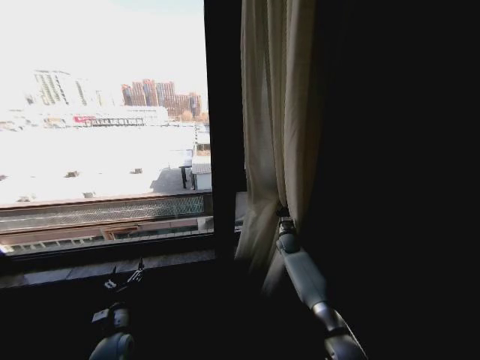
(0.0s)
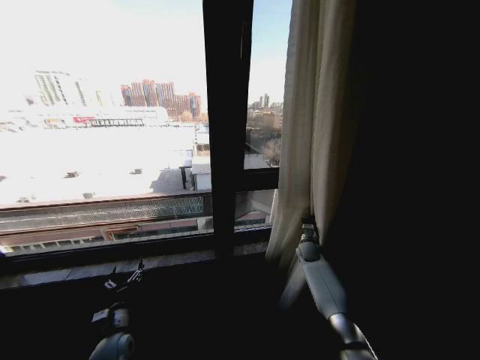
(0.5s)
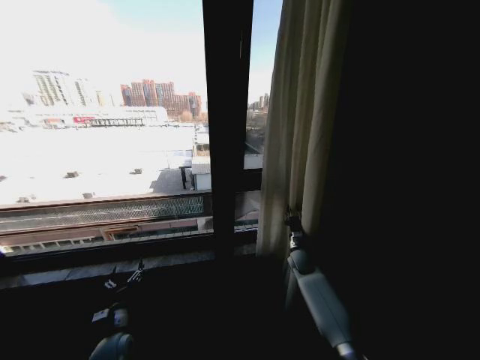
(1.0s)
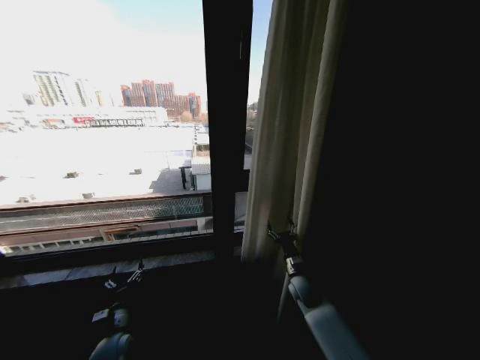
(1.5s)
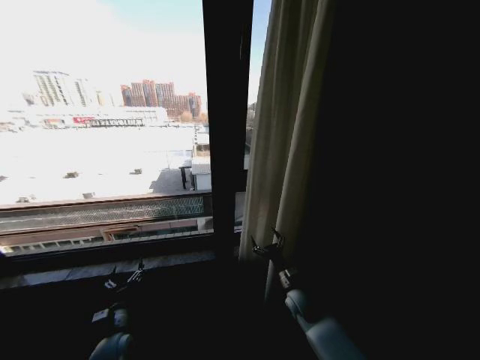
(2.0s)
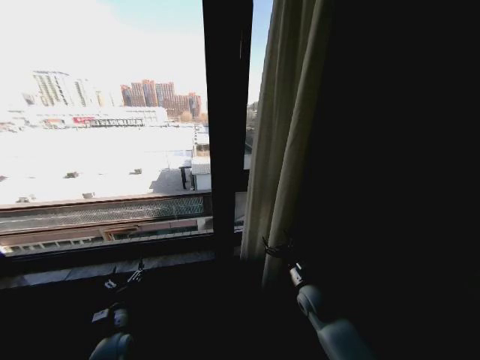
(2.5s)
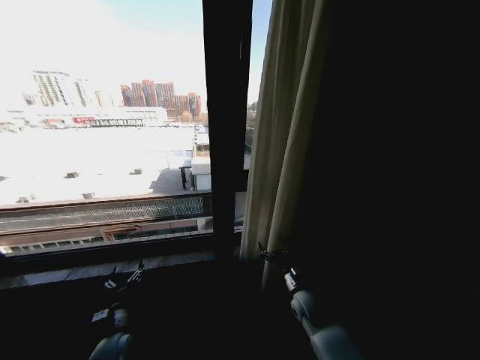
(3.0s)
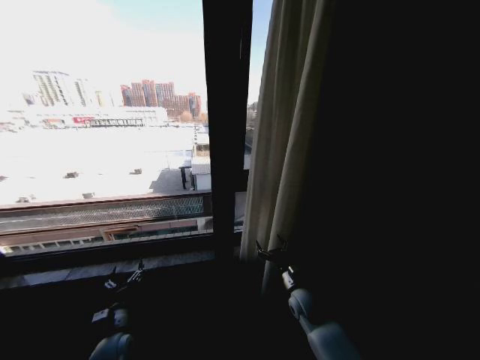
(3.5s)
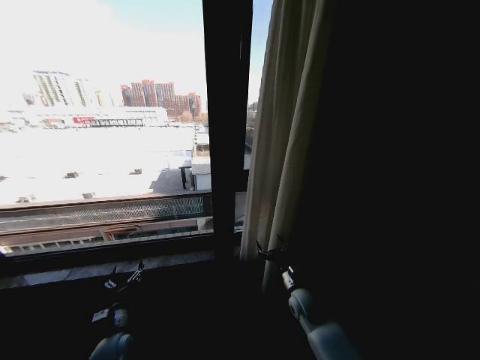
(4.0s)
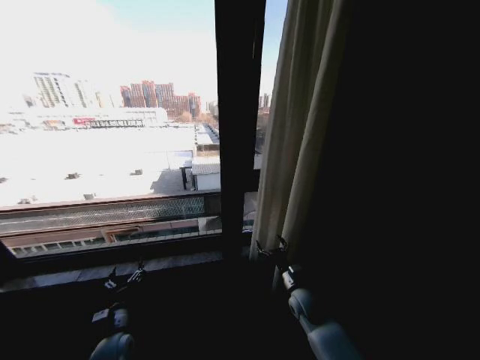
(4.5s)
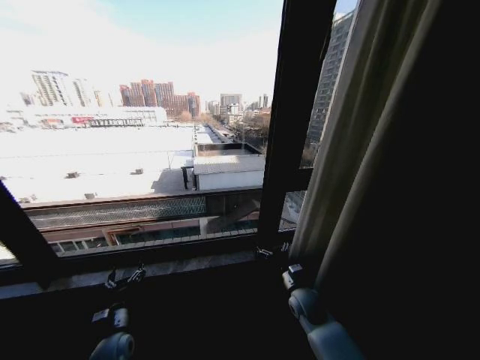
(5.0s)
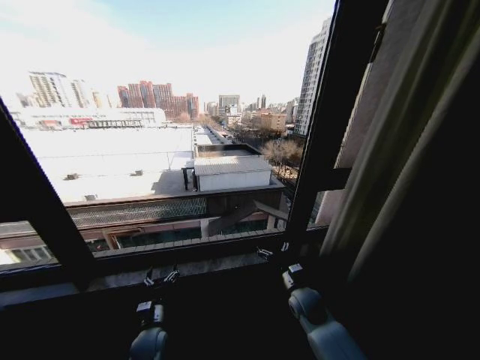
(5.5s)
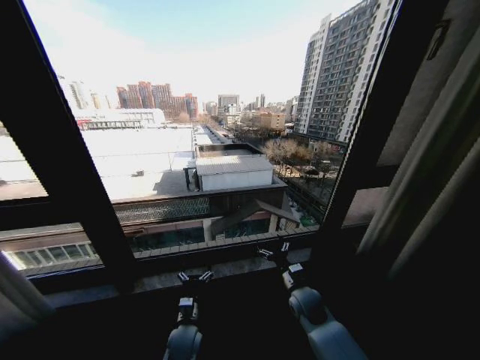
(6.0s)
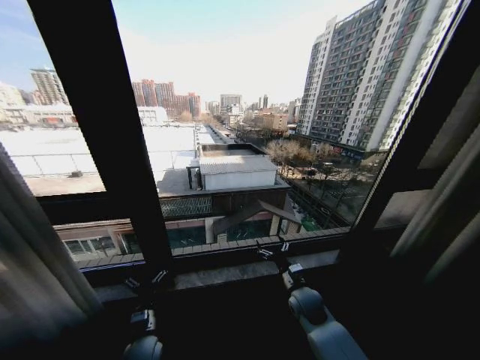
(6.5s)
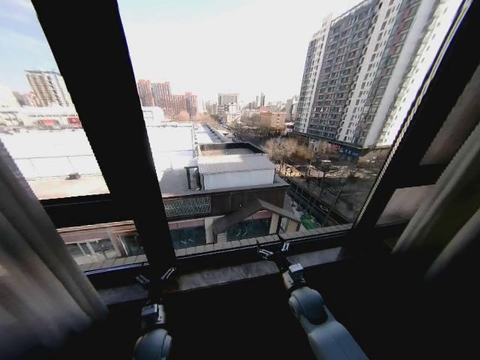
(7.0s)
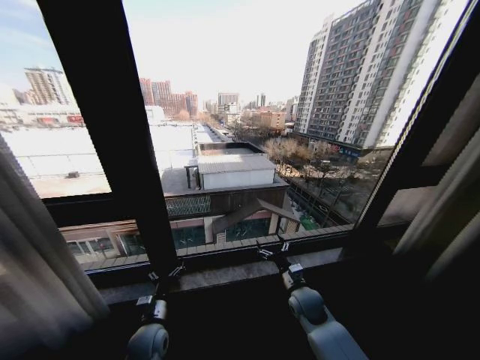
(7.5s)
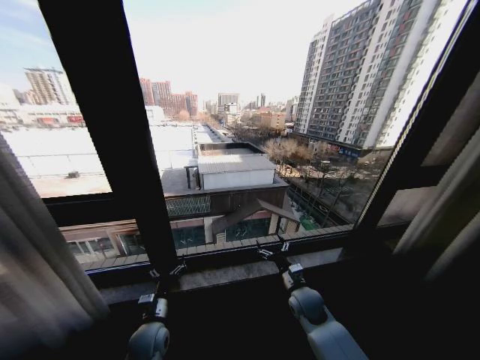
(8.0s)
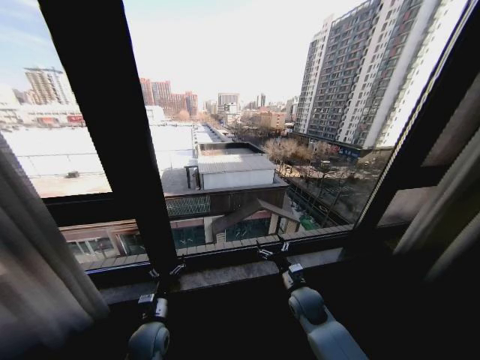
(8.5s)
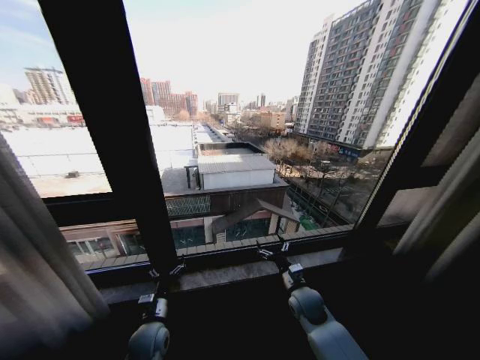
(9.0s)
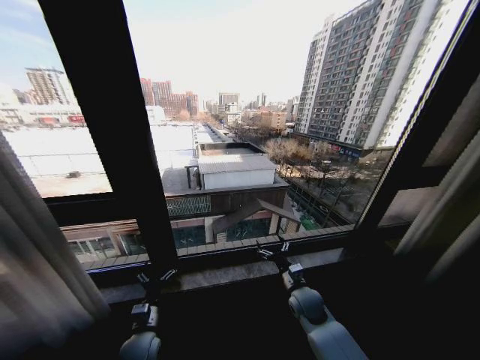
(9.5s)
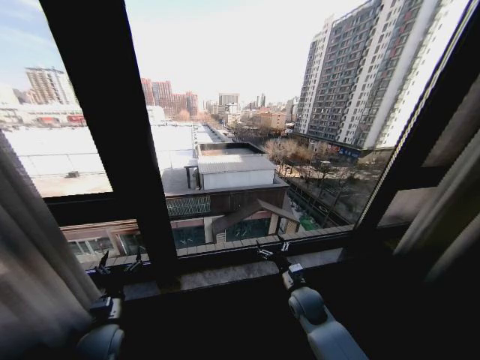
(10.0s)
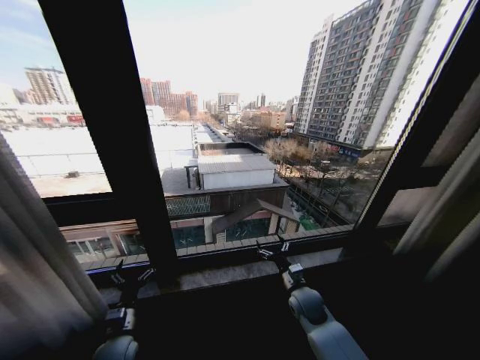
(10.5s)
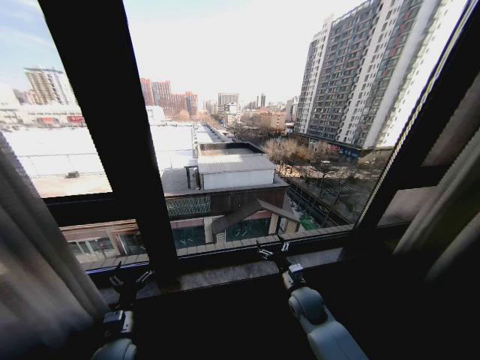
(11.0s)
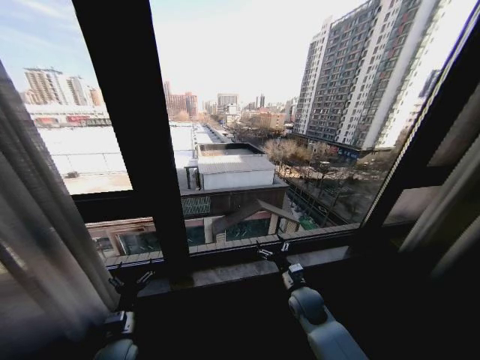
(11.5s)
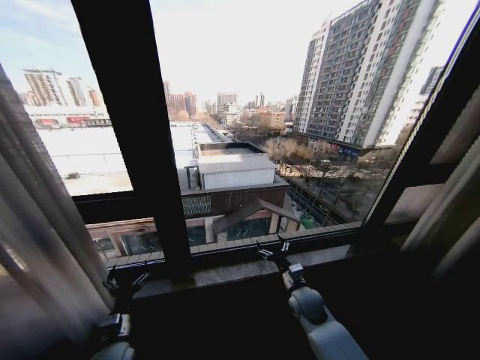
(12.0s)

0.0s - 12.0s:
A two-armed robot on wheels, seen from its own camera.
Task of the whole recording: Open the curtains by pulling them apart, changing their state from closed to fully open.
0.0s - 2.0s: The right gripper travels backward by roughly 20 cm, and opens up.
2.0s - 4.0s: There are only small adjustments of the grippers.
4.0s - 6.0s: The left gripper is displaced to the right by approximately 20 cm.
6.0s - 8.0s: The left gripper shifts roughly 10 cm to the left.
8.0s - 10.0s: The left gripper goes roughly 10 cm to the left.
10.0s - 12.0s: The left gripper changes place by roughly 5 cm.

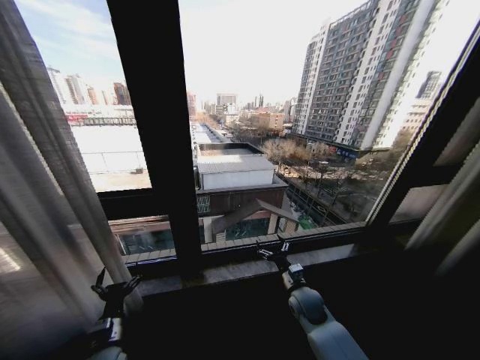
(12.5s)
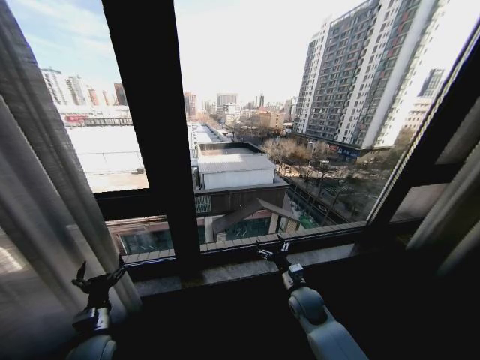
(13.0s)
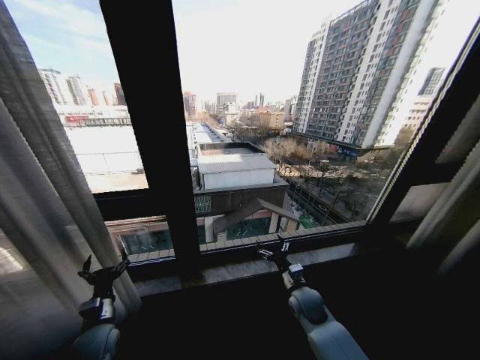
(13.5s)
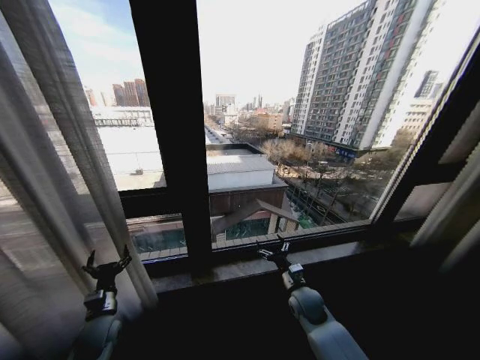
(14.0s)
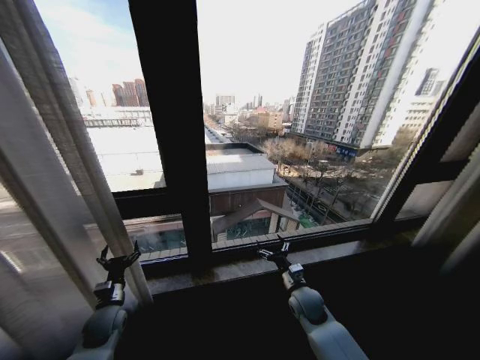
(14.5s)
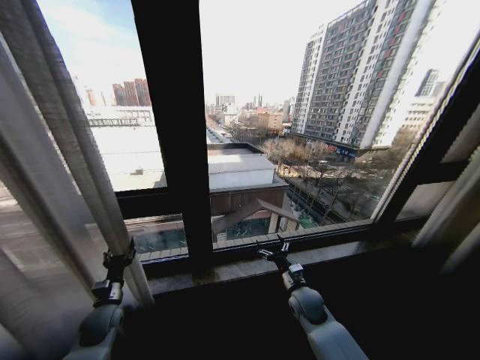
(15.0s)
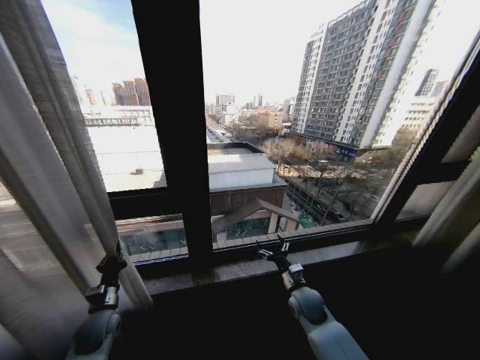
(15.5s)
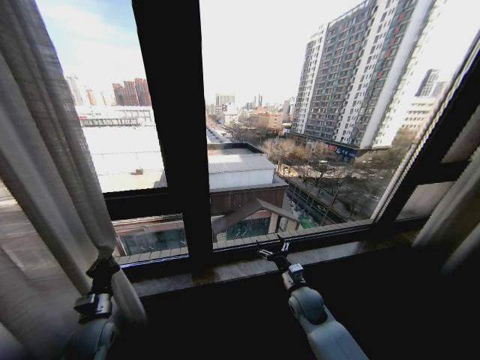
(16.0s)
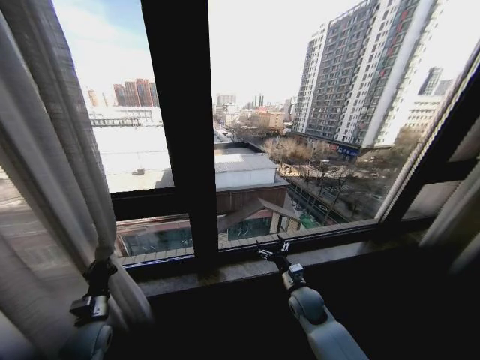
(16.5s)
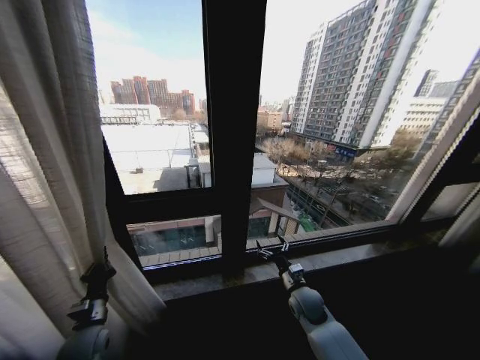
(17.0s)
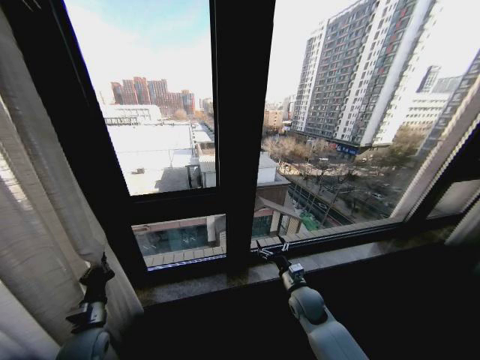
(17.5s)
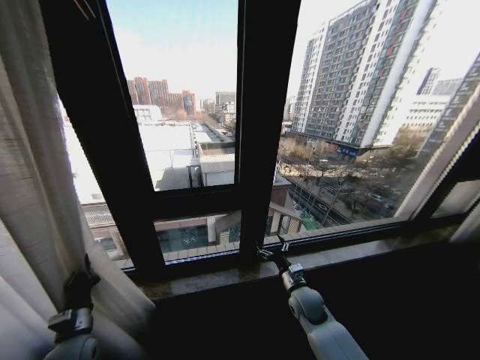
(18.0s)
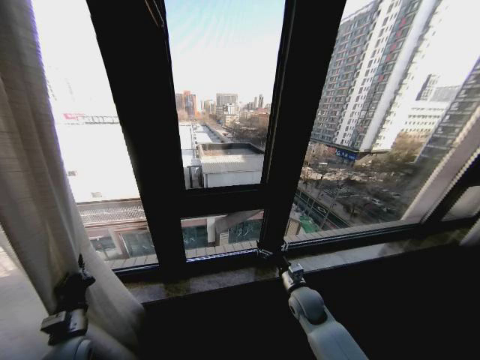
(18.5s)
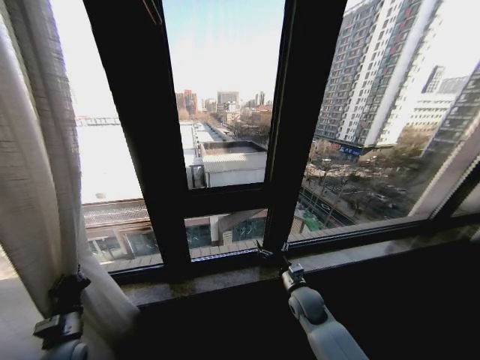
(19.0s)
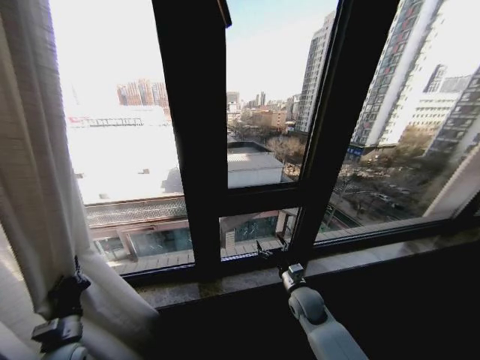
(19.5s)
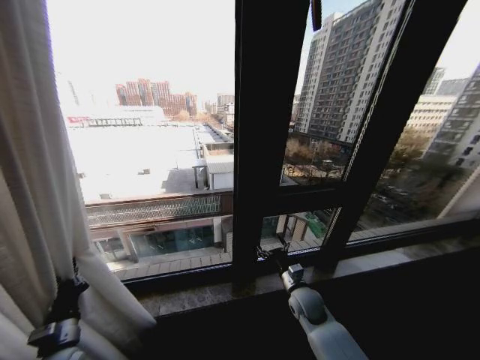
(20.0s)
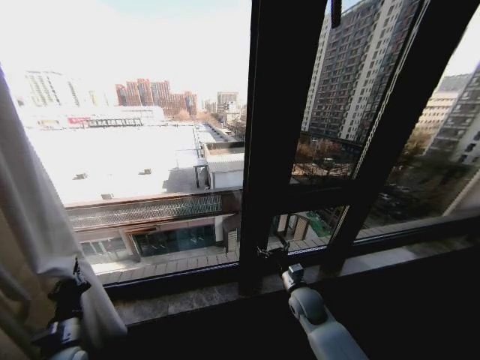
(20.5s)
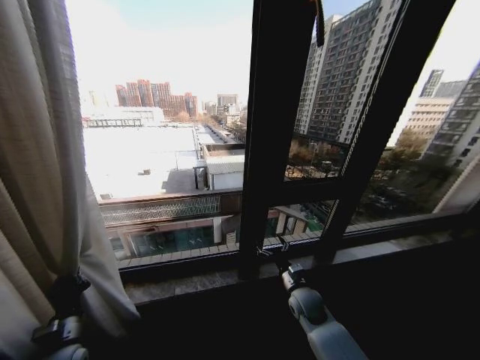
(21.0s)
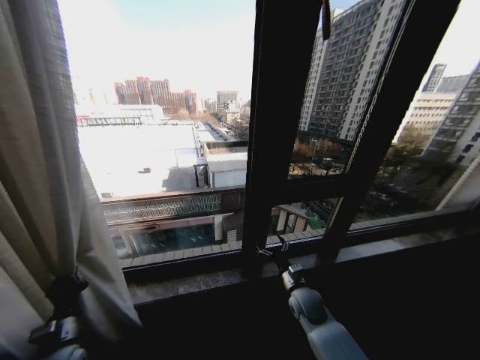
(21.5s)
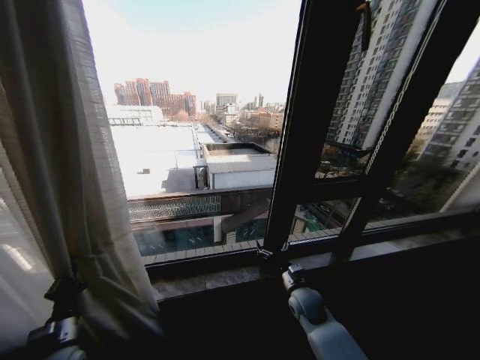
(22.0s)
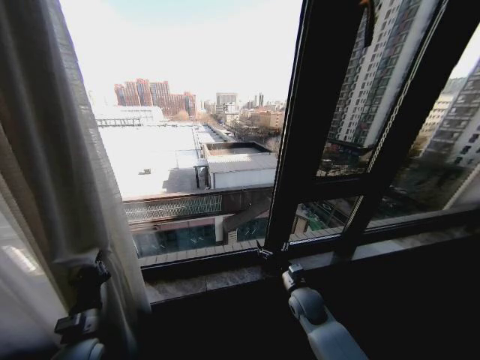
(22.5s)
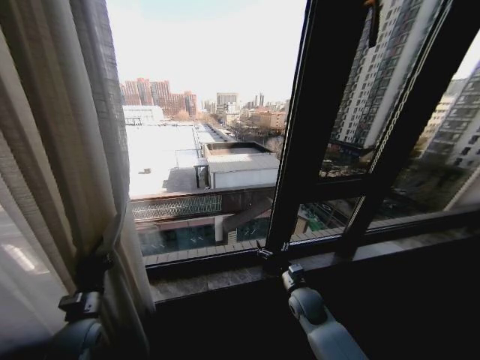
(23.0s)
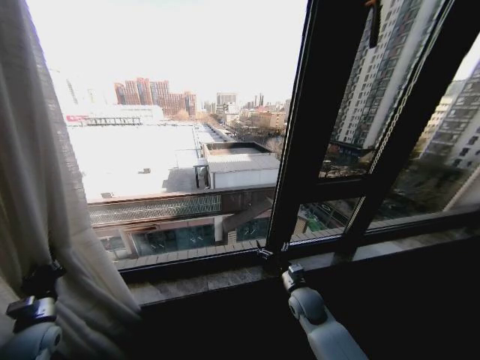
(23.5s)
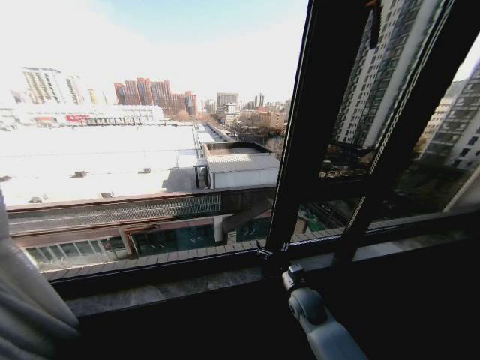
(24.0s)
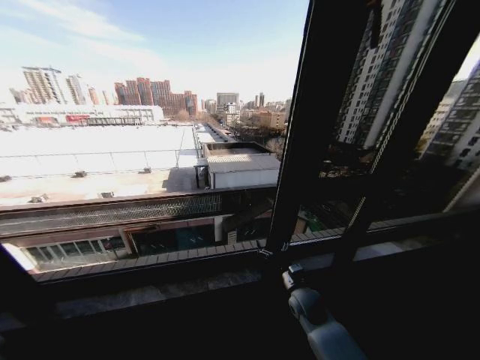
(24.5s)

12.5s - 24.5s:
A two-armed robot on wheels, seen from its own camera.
Task of the whole recording: Open the curtains by pulling them apart, changing their state from closed to fully open.
12.5s - 14.5s: The left gripper shifts approximately 10 cm forward.
14.5s - 16.5s: The left gripper shifts by some 5 cm, and closes its fingers.
22.5s - 24.5s: The left gripper moves to the left, approximately 35 cm.

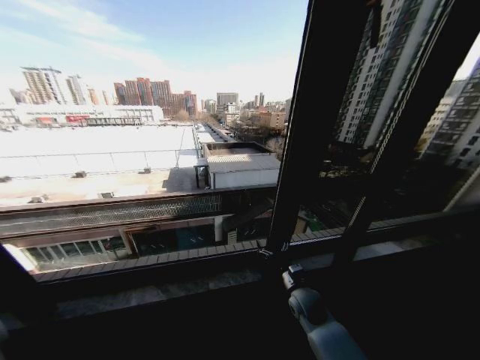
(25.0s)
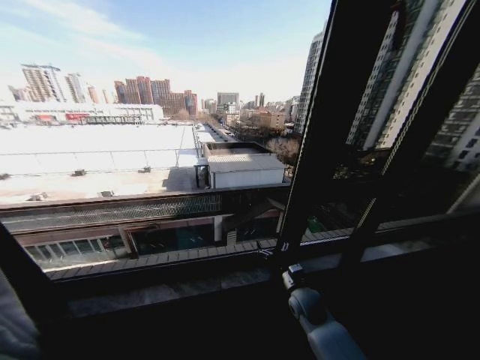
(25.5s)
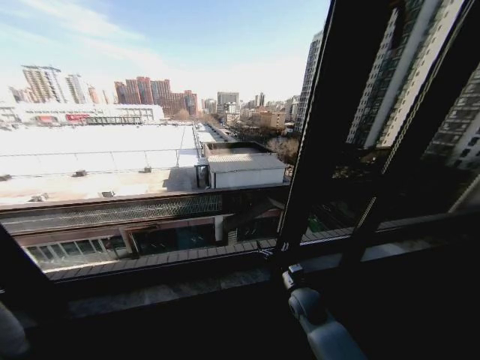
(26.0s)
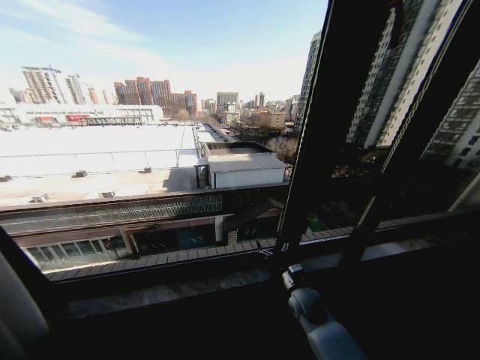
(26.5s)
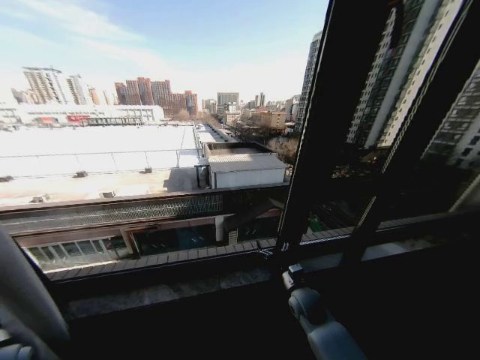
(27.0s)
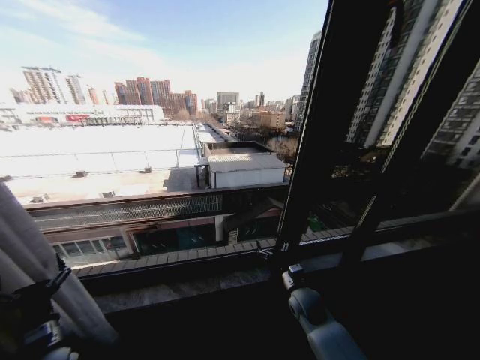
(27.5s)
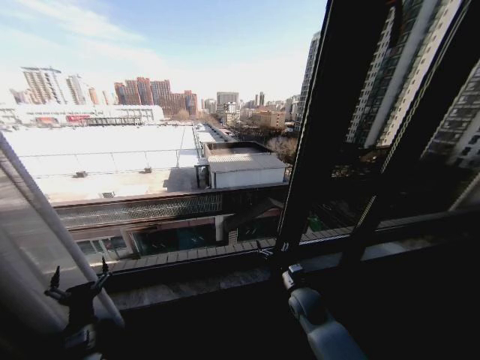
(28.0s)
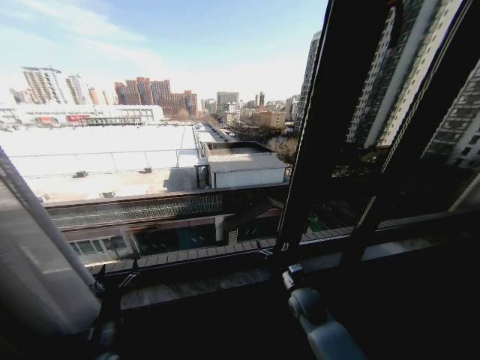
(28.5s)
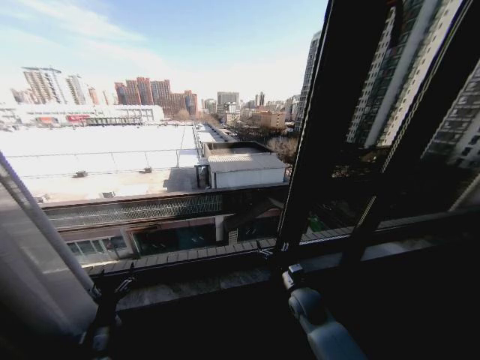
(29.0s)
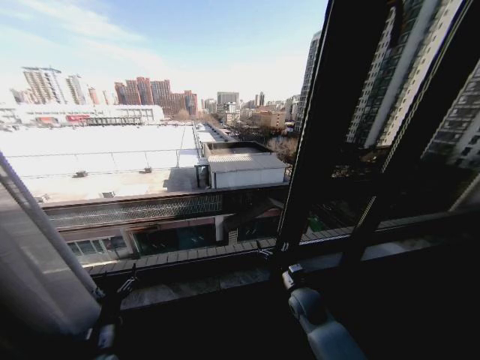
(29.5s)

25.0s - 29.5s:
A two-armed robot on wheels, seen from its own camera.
Task of the whole recording: Open the curtains by pulling them apart, changing their state from closed to fully open.
25.0s - 27.0s: The left gripper is displaced to the right by some 15 cm, and opens its fingers.
27.0s - 29.5s: The left gripper moves to the right and downward, about 20 cm.
